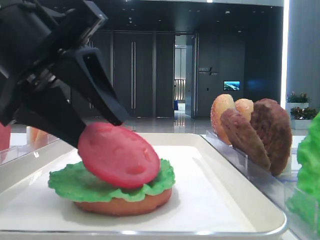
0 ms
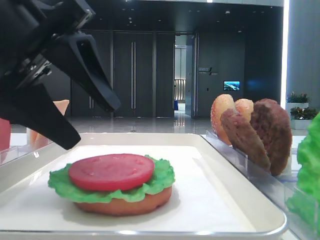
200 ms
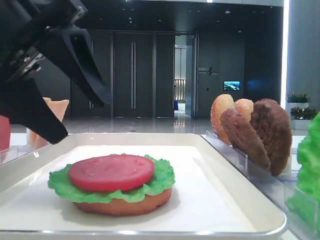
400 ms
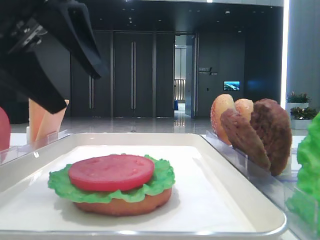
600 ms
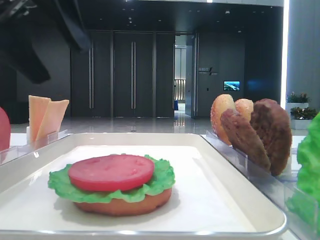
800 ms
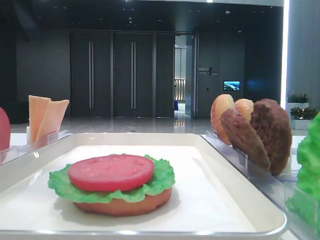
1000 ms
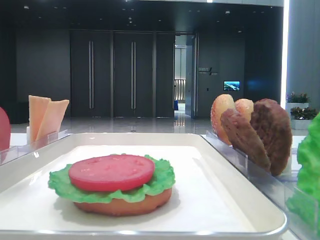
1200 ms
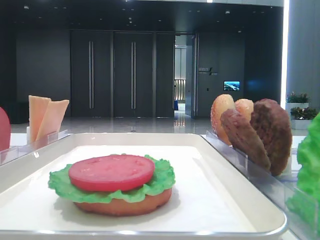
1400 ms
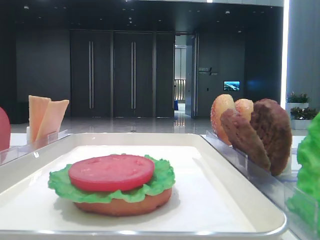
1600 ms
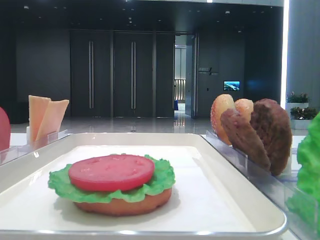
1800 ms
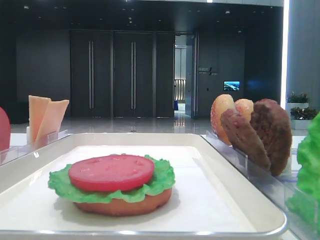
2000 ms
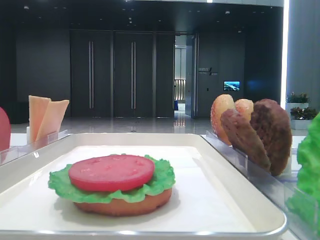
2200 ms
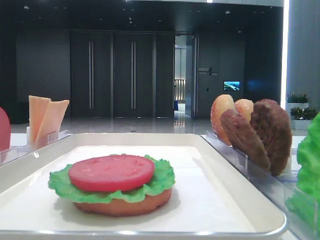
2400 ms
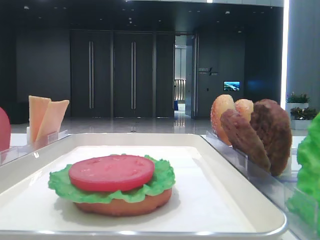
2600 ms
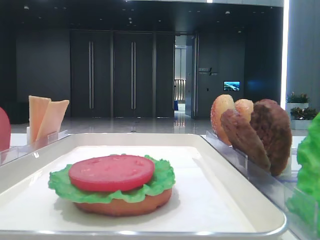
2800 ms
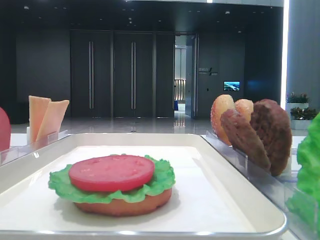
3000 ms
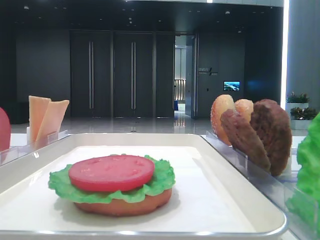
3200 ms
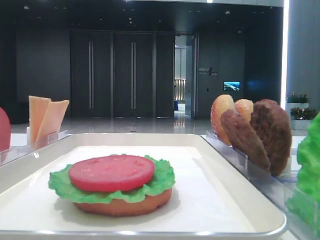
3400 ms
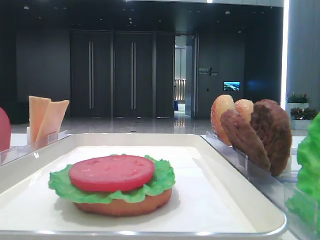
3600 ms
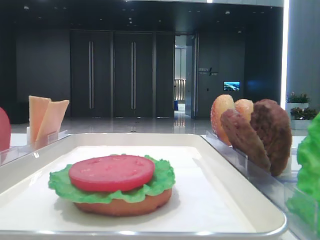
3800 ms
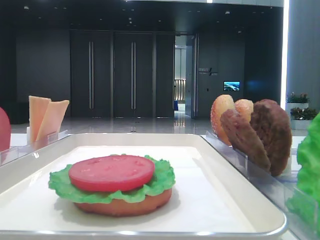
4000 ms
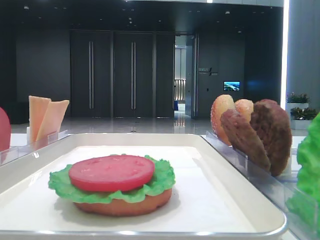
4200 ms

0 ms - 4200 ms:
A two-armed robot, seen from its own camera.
0 ms - 1400 ms: The left gripper moves to the left and upward, some 20 cm, and opens up.

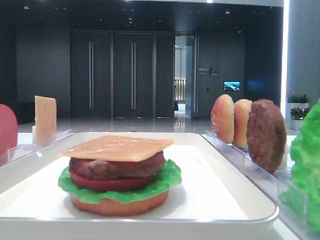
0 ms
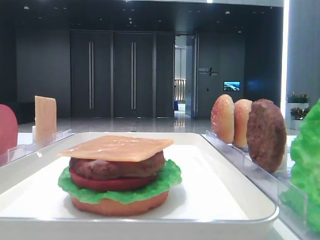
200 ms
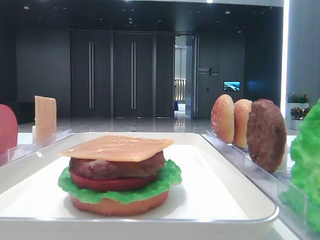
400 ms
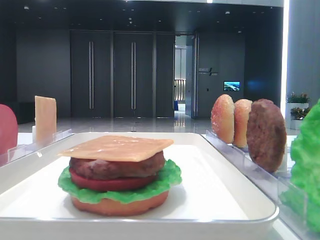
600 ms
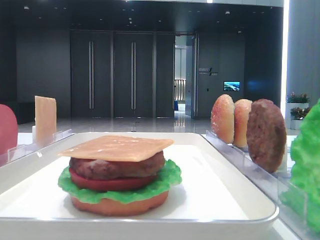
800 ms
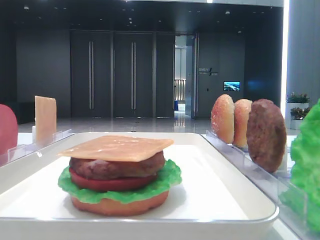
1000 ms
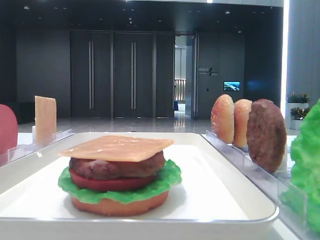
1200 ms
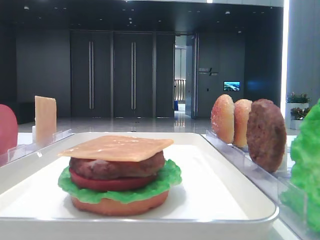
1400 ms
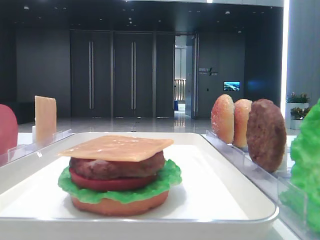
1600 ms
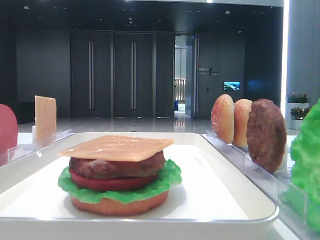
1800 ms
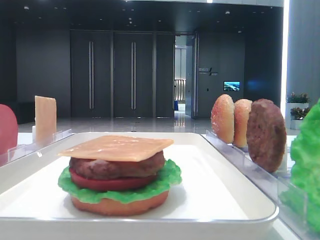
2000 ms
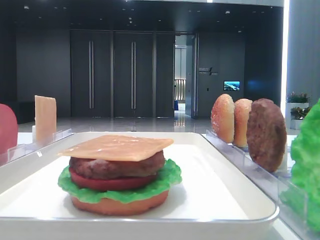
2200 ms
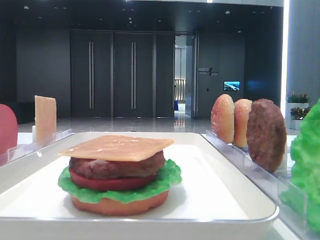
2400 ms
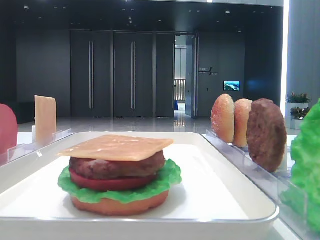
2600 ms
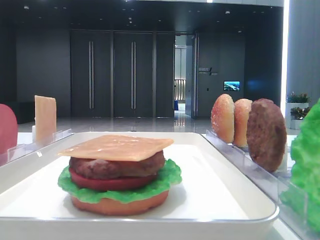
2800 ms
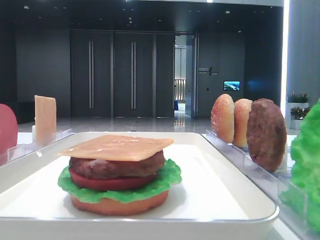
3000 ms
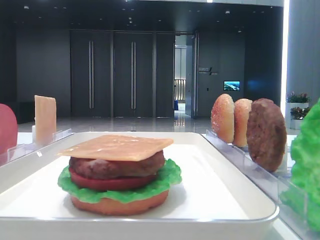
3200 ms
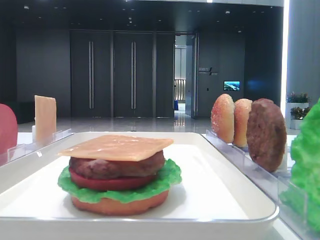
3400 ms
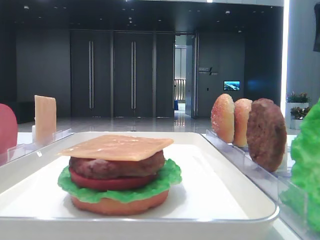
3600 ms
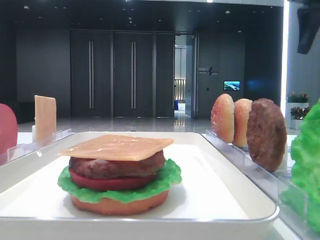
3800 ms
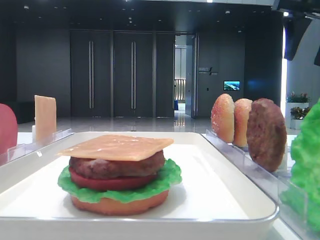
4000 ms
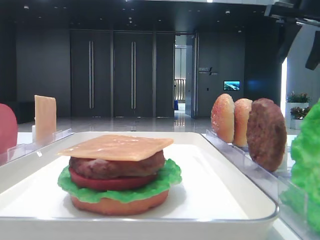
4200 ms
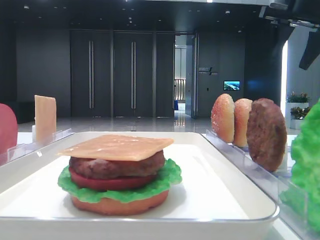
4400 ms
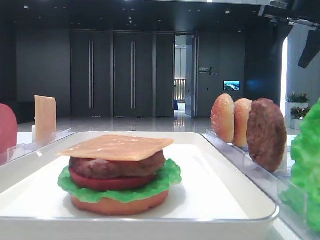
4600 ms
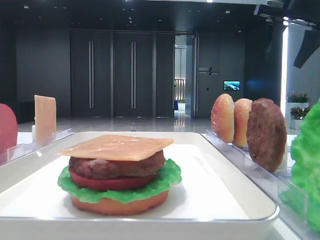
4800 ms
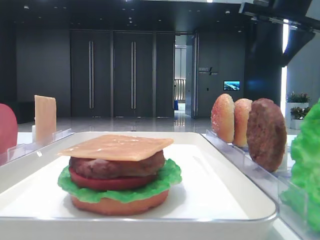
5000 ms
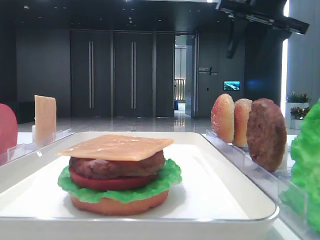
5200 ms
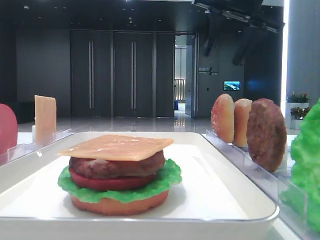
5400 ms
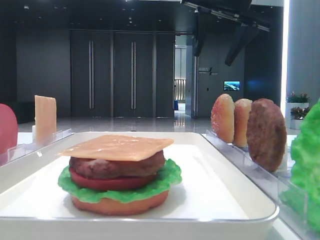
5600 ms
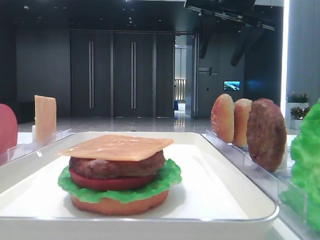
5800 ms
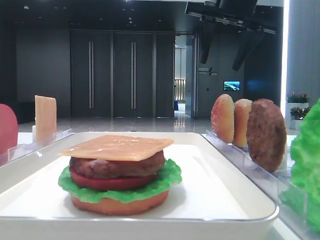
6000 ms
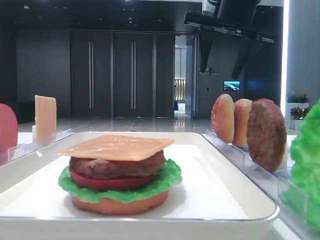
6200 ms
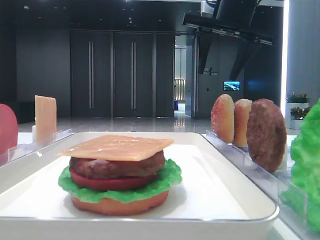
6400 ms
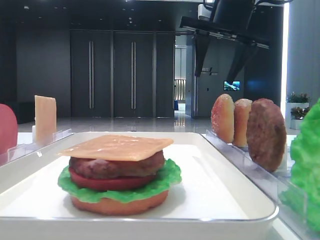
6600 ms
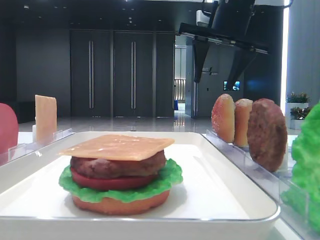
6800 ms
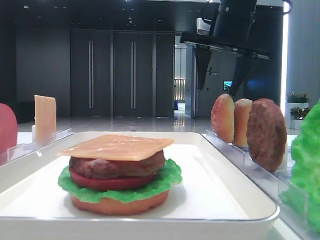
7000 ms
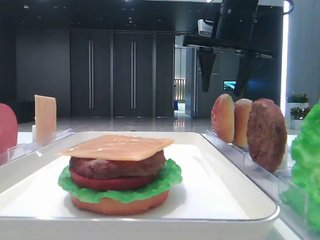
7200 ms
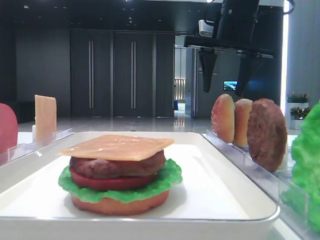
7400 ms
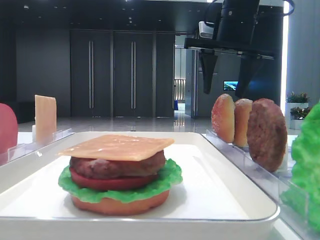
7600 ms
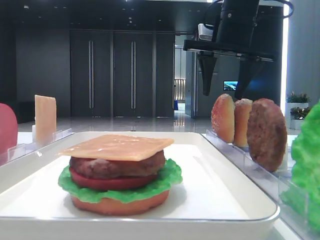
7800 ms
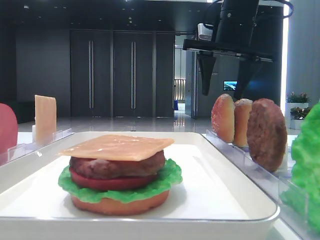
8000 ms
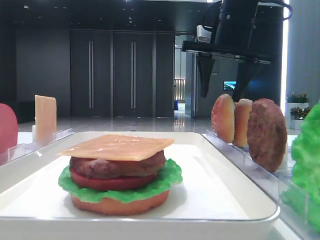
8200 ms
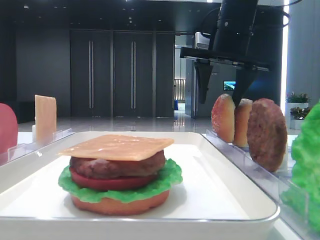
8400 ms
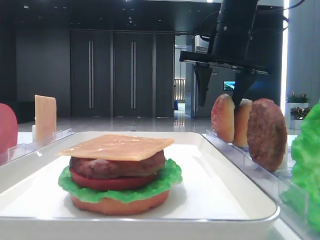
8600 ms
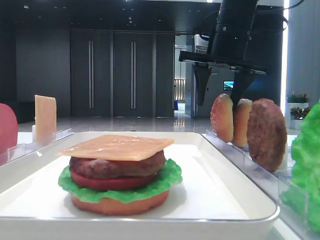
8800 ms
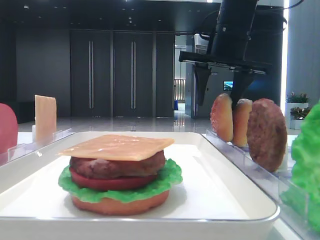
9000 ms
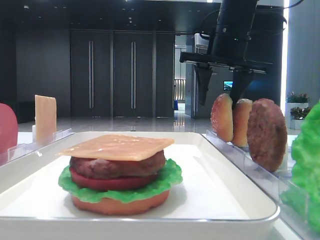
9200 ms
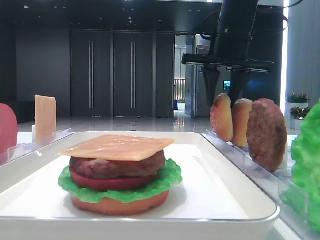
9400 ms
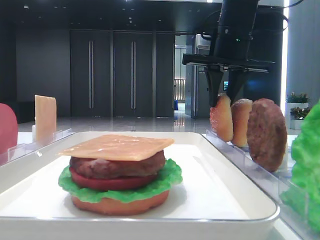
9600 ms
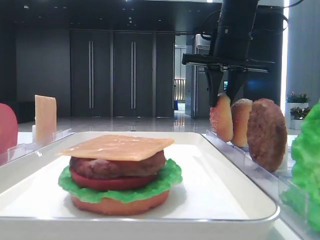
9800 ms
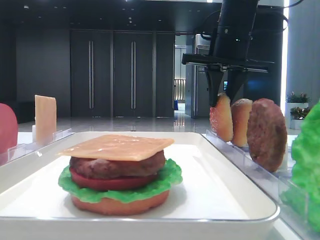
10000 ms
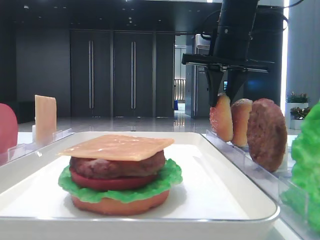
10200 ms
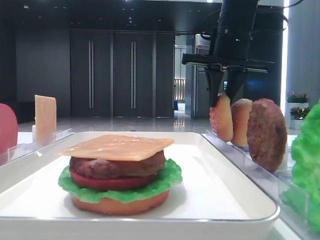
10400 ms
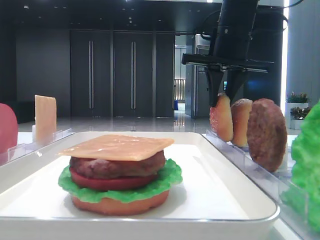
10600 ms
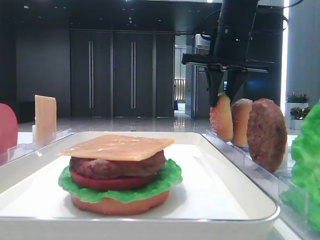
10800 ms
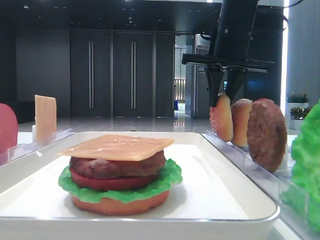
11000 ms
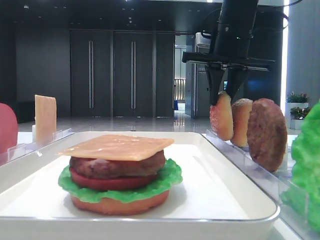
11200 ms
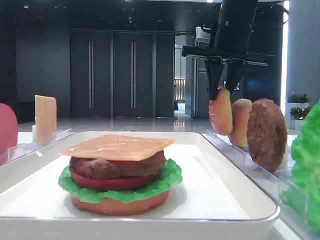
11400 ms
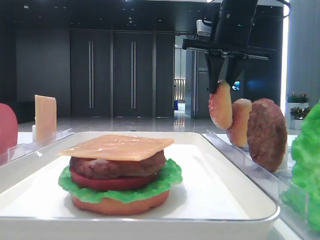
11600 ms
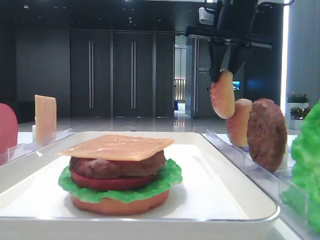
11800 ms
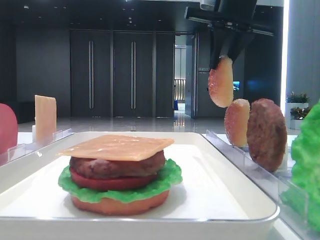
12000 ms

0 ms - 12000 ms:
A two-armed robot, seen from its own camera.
Step, 0 ms - 10800 ms: Pick up the top bread slice with the right hand.
3000 ms - 4400 ms: The right gripper goes some 15 cm forward.
4400 ms - 6000 ms: The right gripper is displaced to the left by about 15 cm.
6000 ms - 7600 ms: The grippers make only small movements.
7600 ms - 9000 ms: The grippers make only small movements.
9000 ms - 10400 ms: The right gripper closes its fingers.
10400 ms - 12000 ms: The right gripper shifts some 5 cm upward.

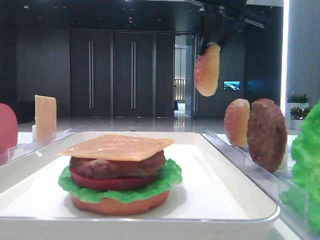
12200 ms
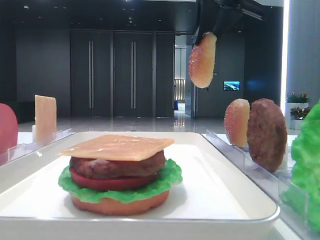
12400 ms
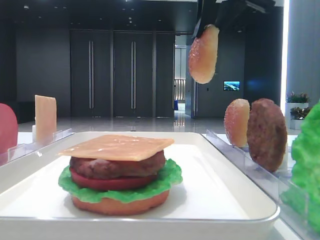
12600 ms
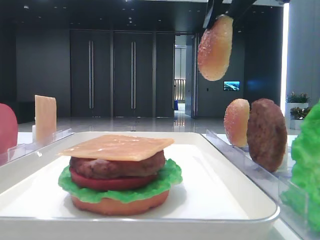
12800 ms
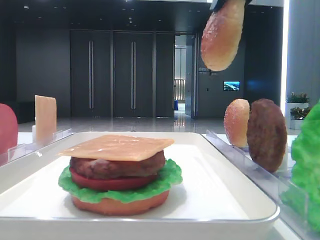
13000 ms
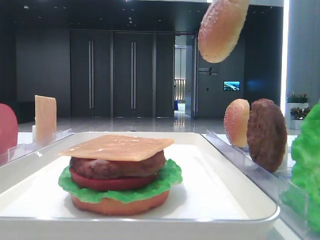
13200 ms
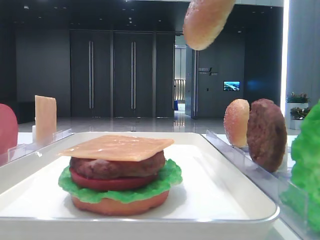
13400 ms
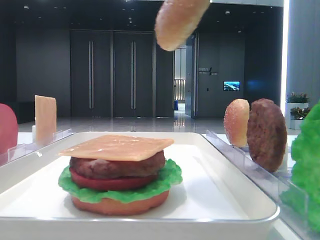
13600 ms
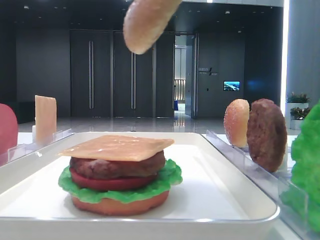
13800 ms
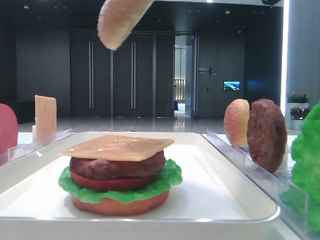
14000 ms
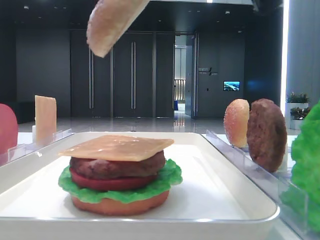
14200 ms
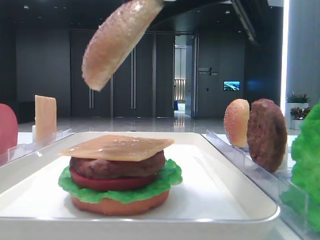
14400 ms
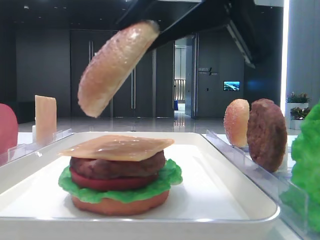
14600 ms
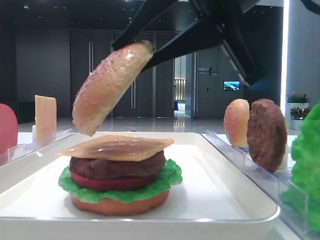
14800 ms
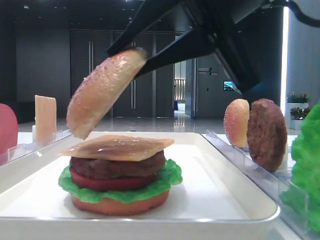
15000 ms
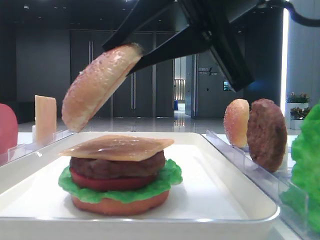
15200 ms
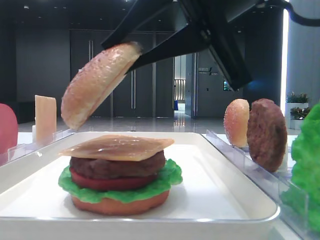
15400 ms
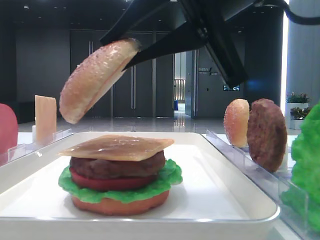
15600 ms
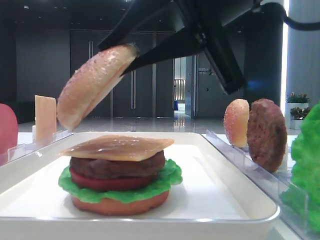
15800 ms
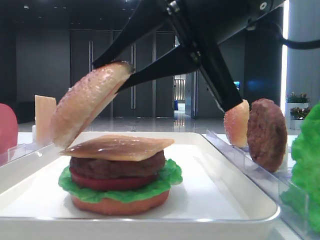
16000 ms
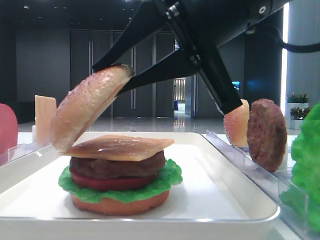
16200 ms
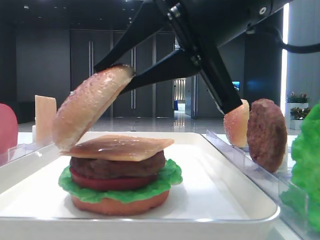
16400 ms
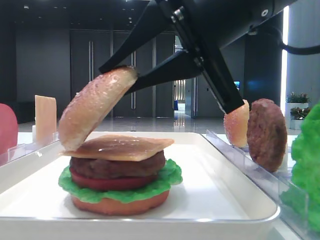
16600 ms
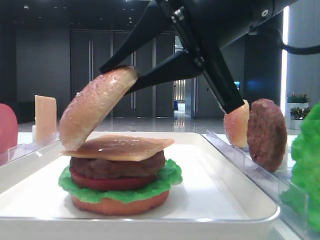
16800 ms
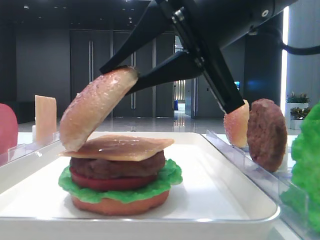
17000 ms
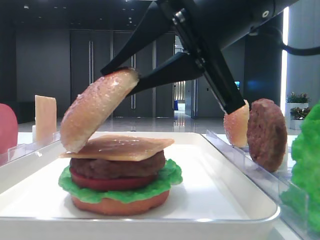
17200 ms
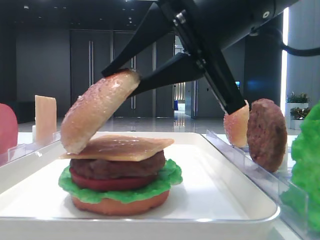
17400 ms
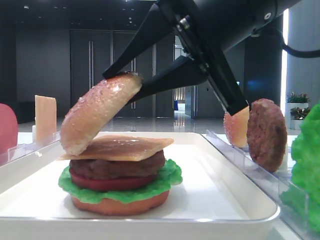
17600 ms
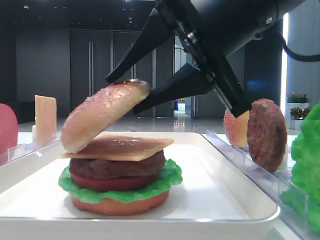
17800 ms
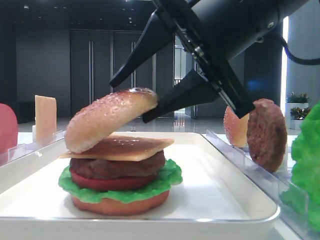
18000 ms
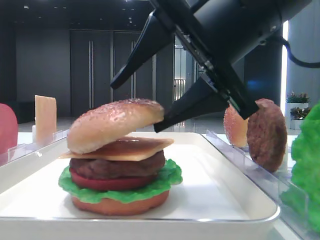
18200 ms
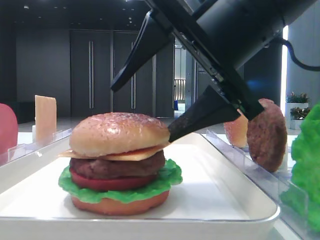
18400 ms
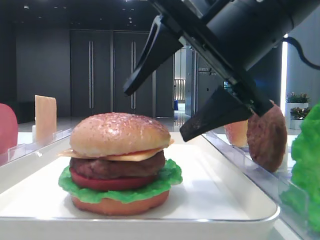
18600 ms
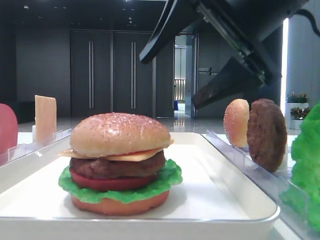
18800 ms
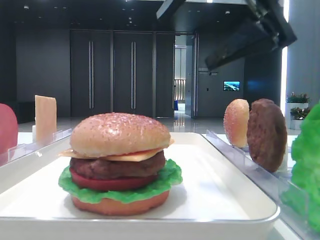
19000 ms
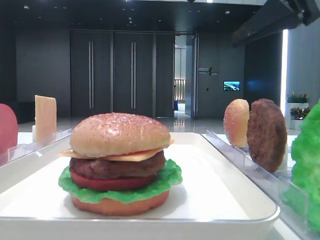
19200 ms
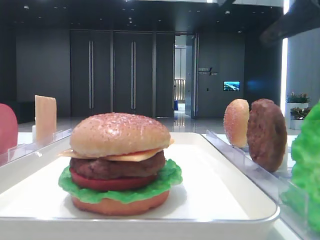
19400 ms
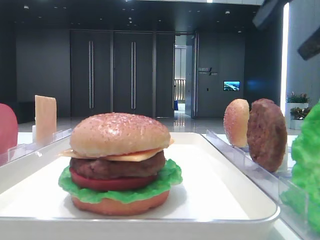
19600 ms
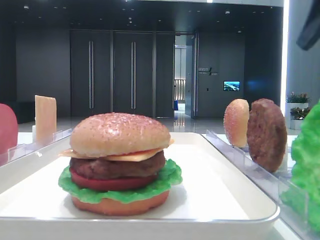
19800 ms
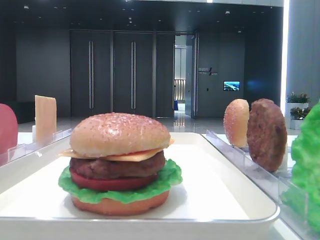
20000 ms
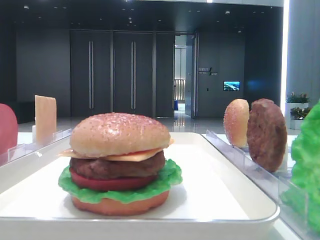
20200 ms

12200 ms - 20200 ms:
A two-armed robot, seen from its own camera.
Step, 12200 ms - 18400 ms: Place the top bread slice on the cheese with the right hand.
12200 ms - 13800 ms: The right gripper travels backward by some 20 cm.
13800 ms - 15400 ms: The right gripper shifts some 10 cm downward.
15400 ms - 17000 ms: The grippers move only a little.
17000 ms - 18600 ms: The right gripper opens up.
18600 ms - 20200 ms: The right gripper is displaced to the right by some 25 cm.
